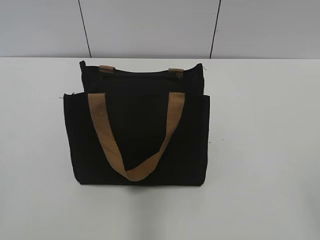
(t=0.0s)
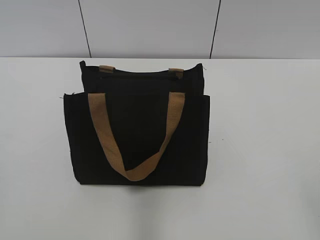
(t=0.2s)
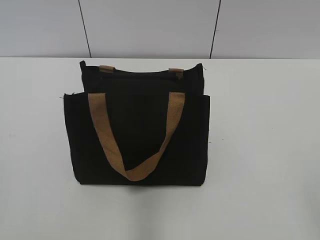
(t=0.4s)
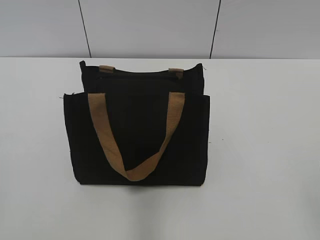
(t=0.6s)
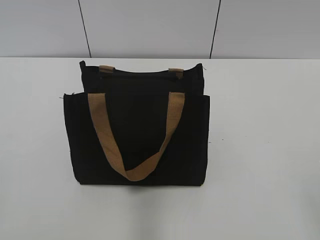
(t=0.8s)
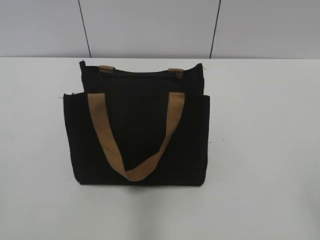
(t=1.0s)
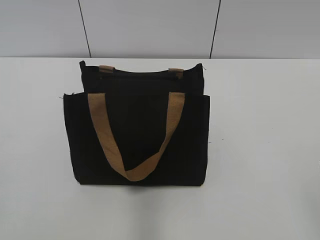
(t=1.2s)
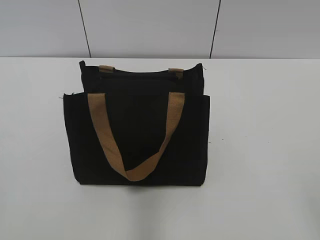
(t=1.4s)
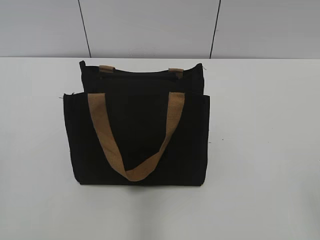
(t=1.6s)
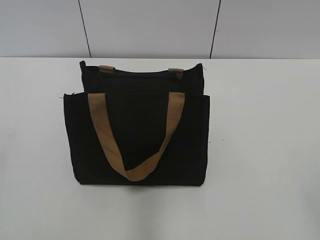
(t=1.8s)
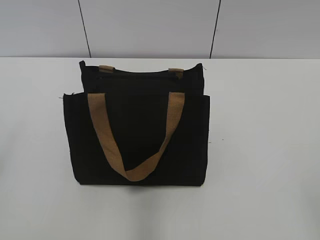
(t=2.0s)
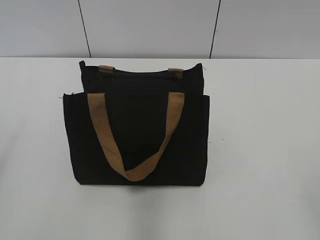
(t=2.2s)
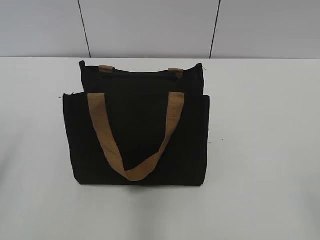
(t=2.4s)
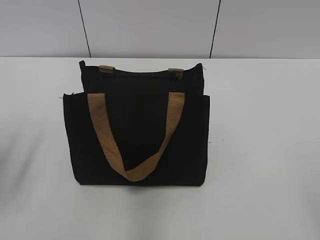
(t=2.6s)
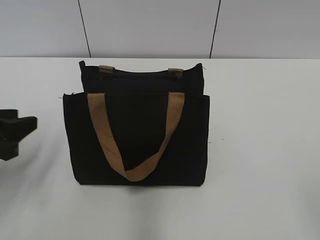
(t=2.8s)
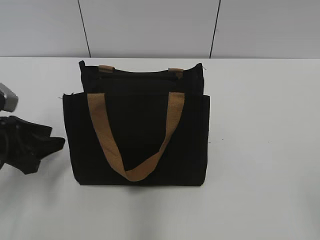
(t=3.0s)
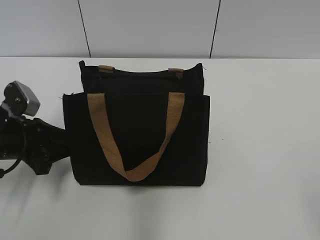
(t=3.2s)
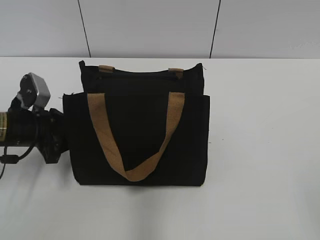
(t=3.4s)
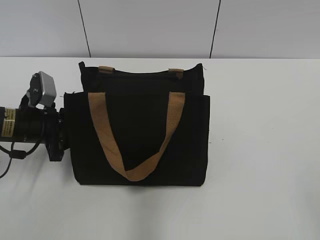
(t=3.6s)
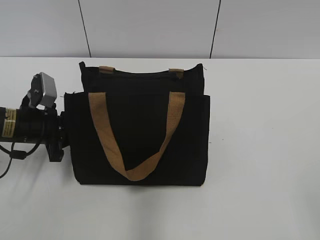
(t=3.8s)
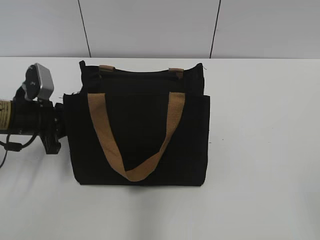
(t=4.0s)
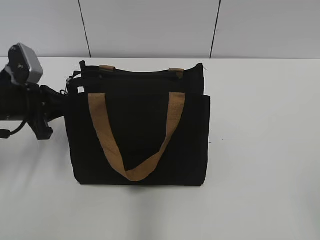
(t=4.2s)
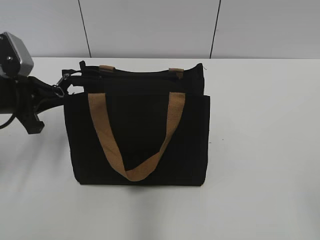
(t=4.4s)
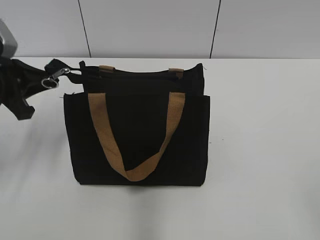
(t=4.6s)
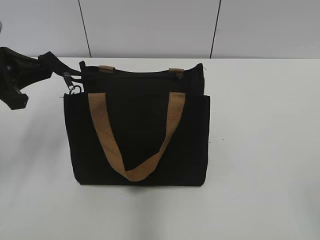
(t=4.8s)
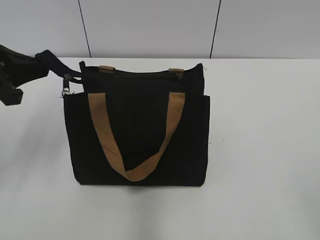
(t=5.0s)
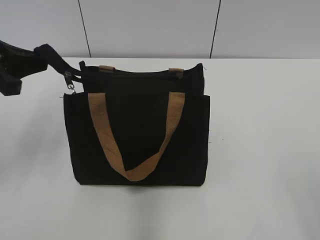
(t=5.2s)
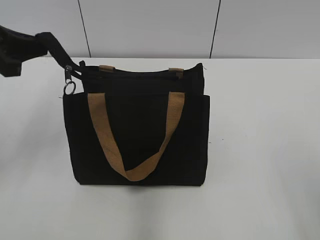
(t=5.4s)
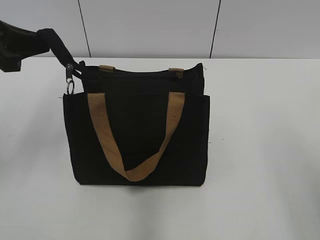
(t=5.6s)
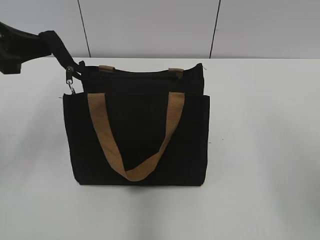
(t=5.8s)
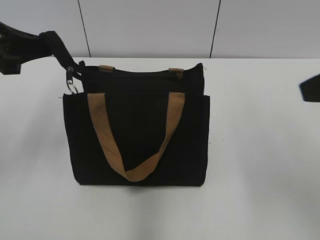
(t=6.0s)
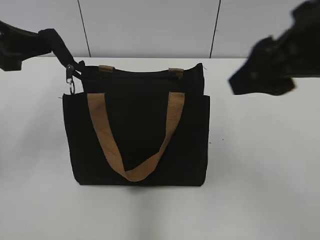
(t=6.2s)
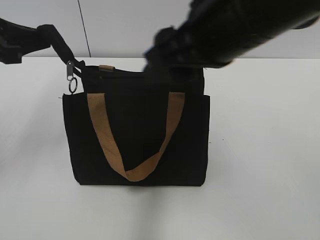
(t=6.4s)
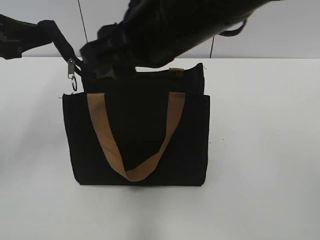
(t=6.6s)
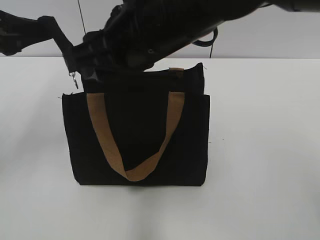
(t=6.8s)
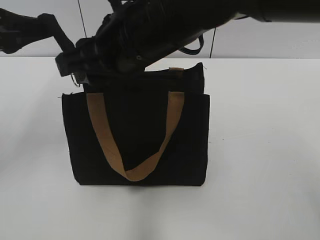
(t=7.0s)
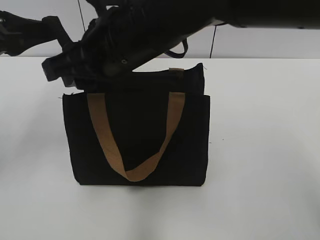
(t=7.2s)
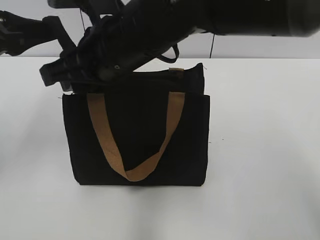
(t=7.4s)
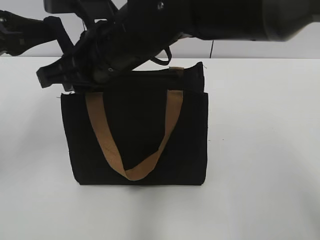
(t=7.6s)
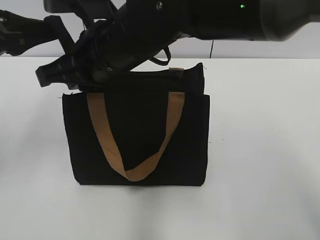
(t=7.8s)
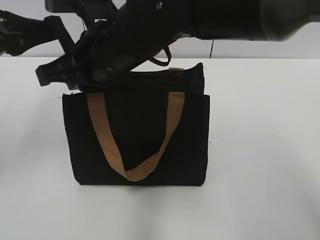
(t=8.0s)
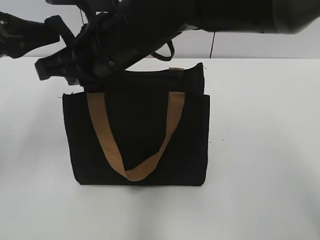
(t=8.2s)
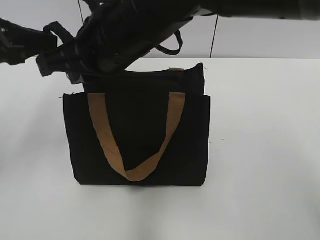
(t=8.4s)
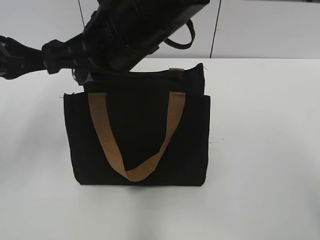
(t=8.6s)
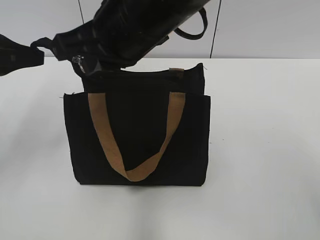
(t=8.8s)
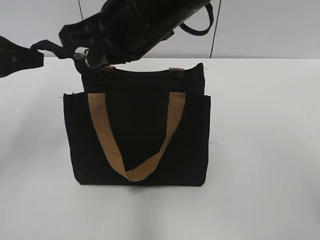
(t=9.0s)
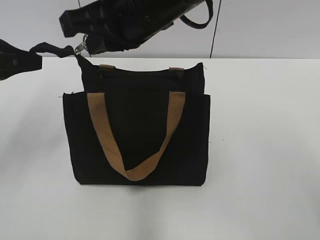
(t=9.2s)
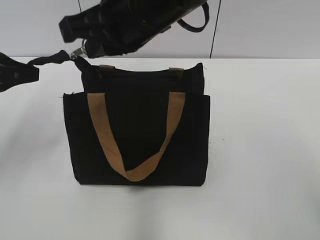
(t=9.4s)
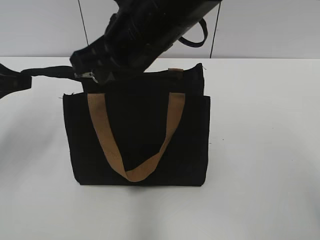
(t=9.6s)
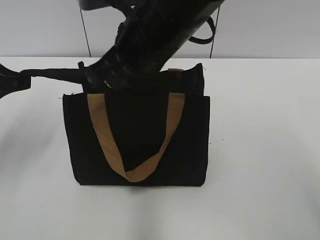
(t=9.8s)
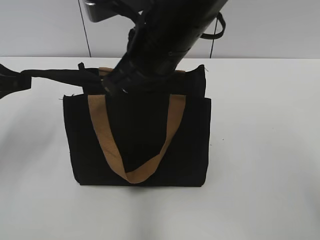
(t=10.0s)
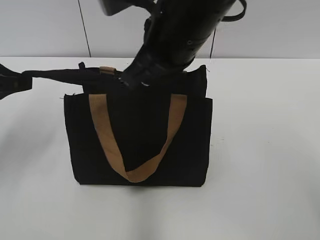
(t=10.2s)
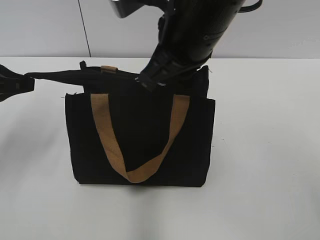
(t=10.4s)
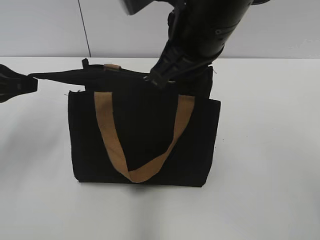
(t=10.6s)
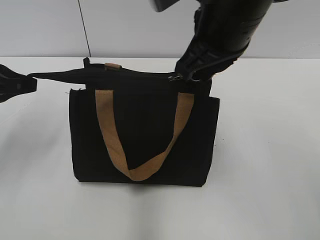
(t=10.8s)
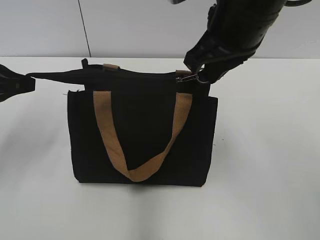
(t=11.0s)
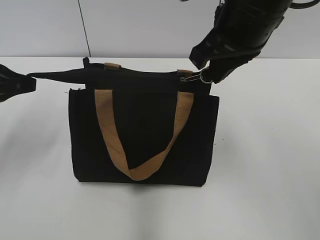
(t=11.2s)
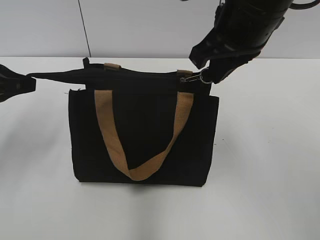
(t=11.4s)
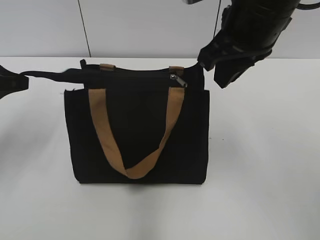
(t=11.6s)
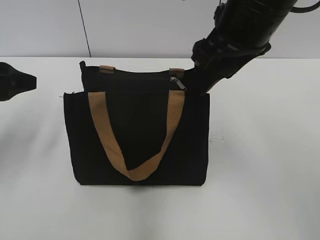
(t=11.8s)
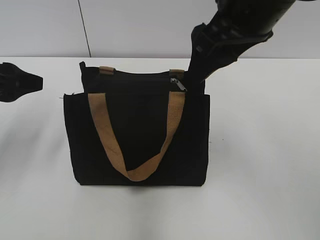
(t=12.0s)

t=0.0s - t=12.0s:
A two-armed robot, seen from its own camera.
Step, t=0.0s - t=11.4s: Zip up the bag with your right hand.
t=1.6s - t=3.0s: The left gripper travels forward and downward by about 30 cm.
t=3.0s - t=4.4s: The left gripper travels forward by some 5 cm, and closes up.
t=4.4s - t=6.0s: The left gripper moves upward, approximately 10 cm; the right gripper travels forward by some 20 cm.
t=6.0s - t=7.6s: The right gripper shifts approximately 30 cm to the left and forward, and closes up.
t=7.6s - t=9.0s: The right gripper moves upward, roughly 5 cm.
t=10.4s - t=12.0s: The left gripper opens. Meanwhile the right gripper shifts some 5 cm to the right, and opens up.

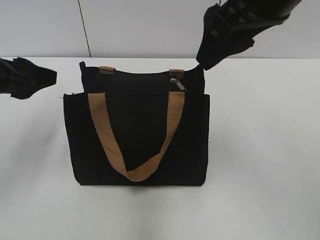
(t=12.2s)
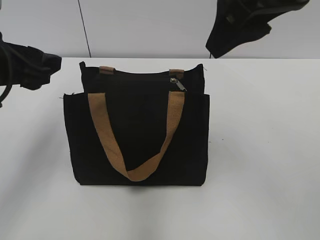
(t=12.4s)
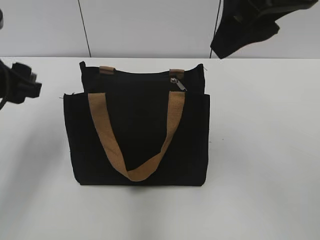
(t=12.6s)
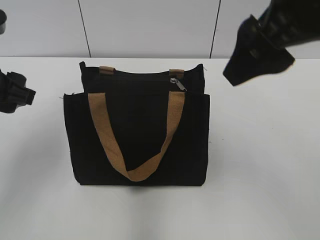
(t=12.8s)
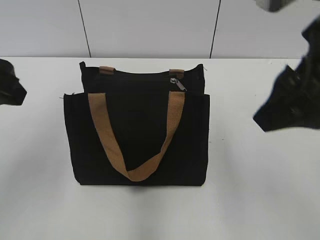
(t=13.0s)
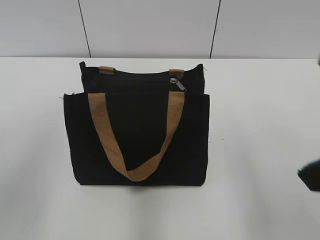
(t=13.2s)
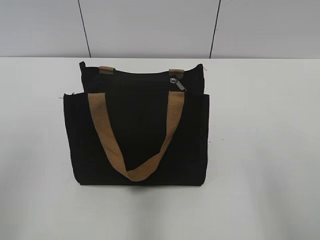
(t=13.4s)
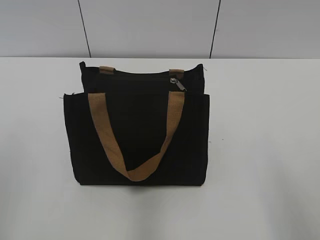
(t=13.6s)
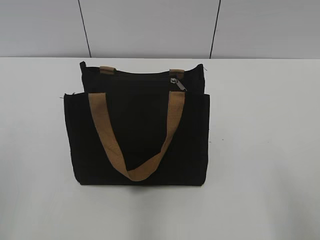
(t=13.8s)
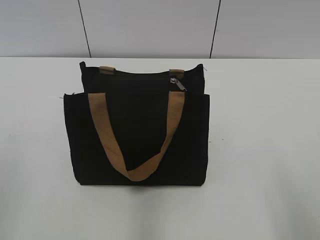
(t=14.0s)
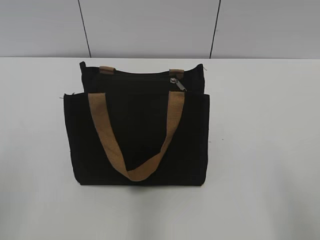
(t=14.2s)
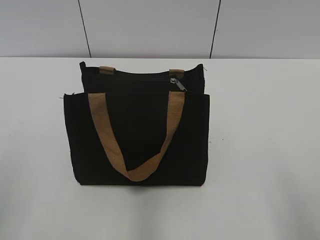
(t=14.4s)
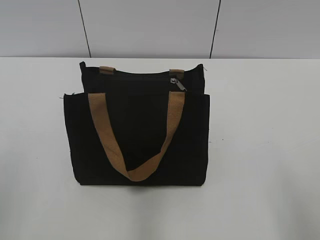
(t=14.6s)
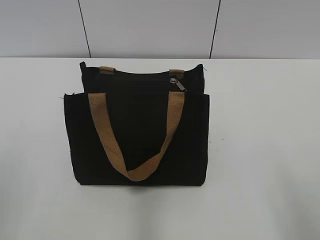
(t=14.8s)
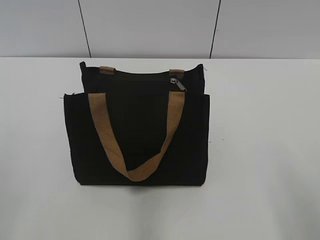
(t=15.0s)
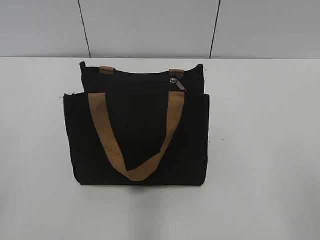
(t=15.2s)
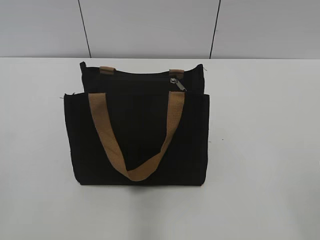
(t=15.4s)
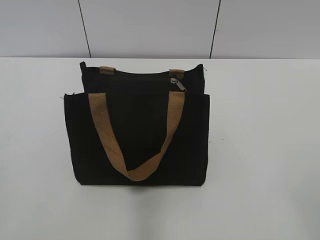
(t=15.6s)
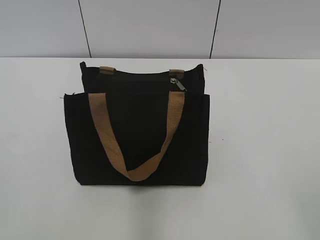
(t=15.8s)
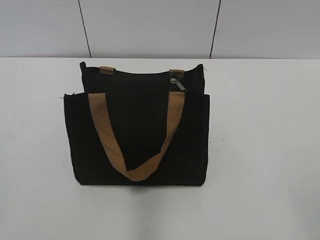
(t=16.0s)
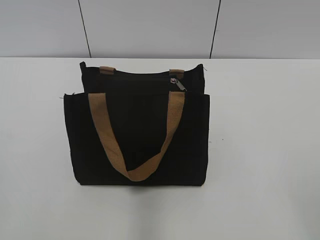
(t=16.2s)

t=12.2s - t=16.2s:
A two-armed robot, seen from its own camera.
t=12.2s - t=13.6s: The left gripper is displaced backward by about 20 cm; the right gripper moves backward, to the right and downward, about 25 cm.
